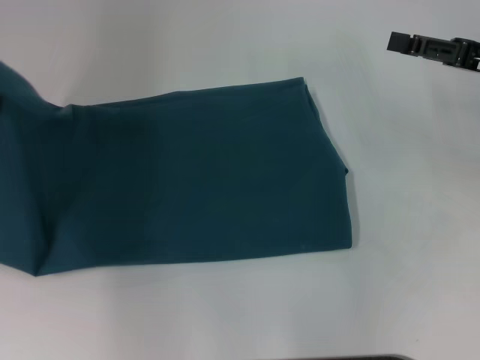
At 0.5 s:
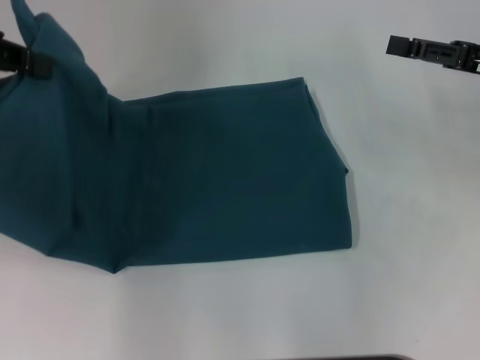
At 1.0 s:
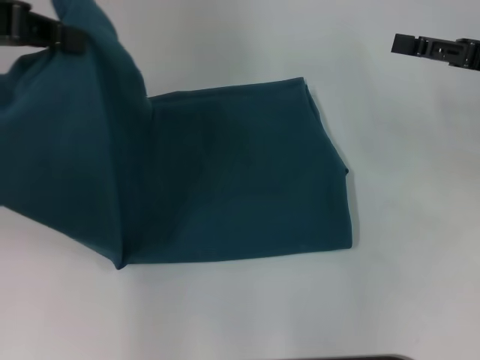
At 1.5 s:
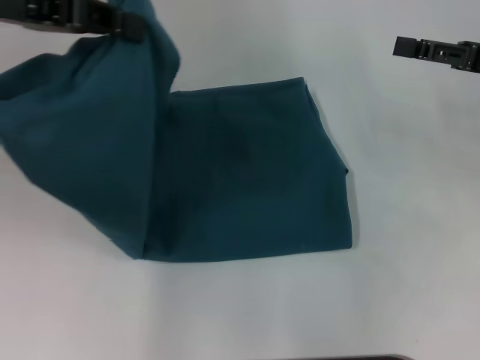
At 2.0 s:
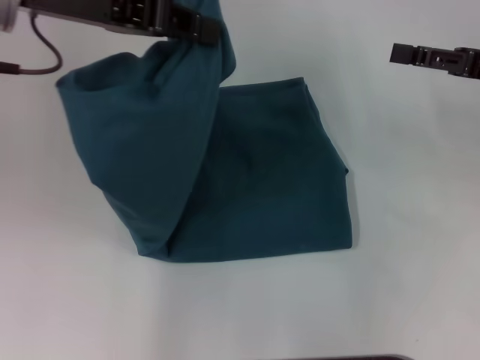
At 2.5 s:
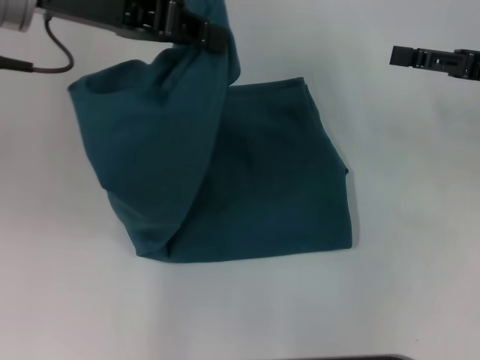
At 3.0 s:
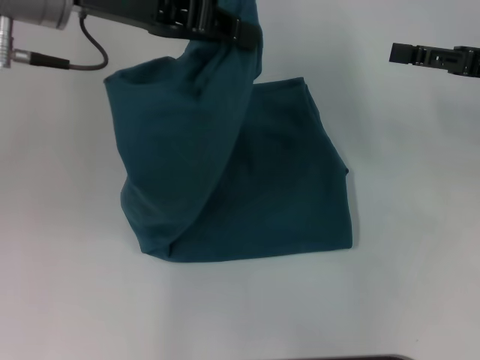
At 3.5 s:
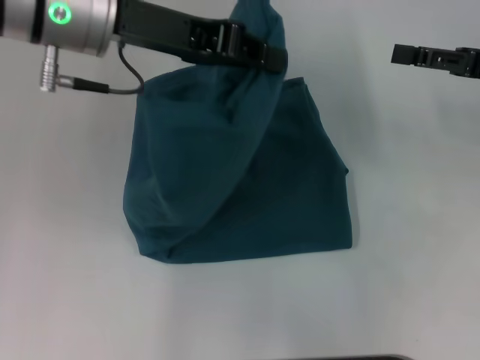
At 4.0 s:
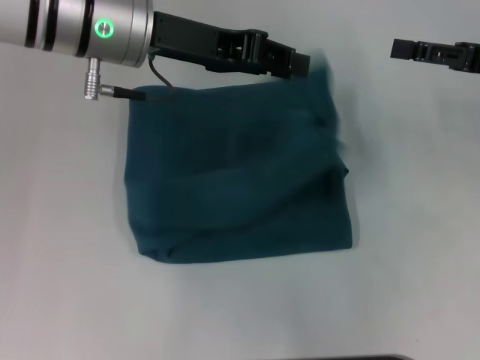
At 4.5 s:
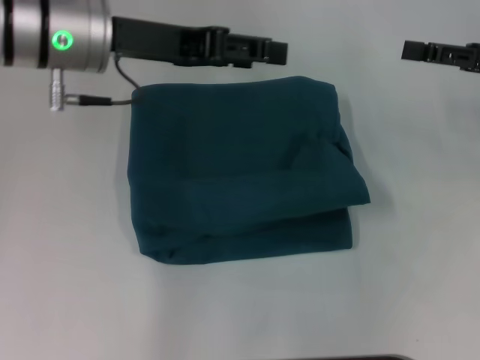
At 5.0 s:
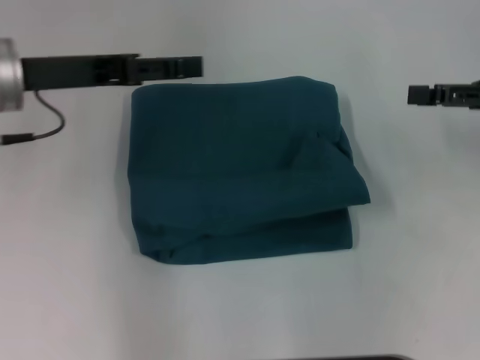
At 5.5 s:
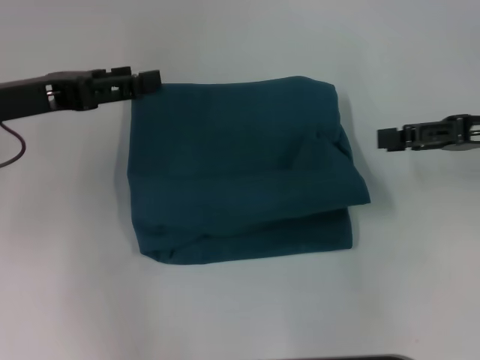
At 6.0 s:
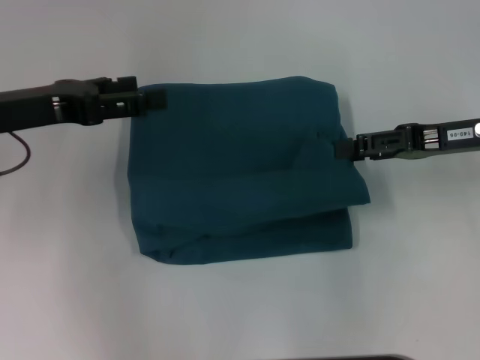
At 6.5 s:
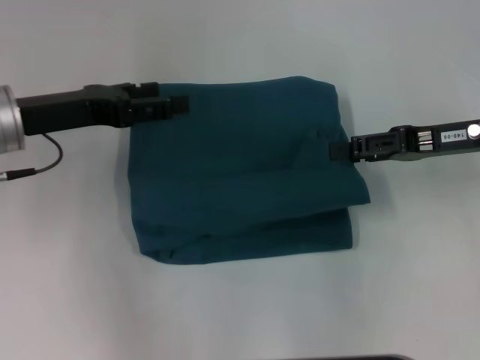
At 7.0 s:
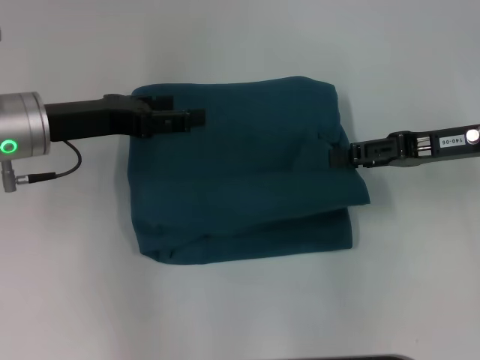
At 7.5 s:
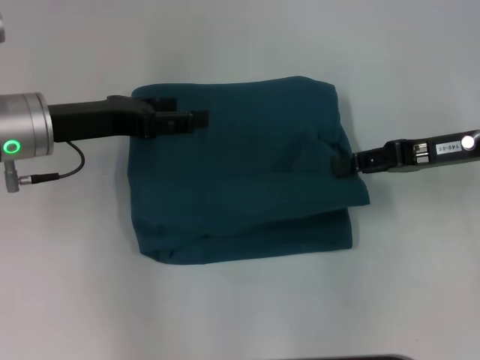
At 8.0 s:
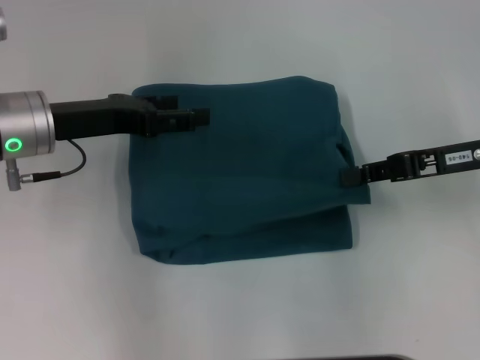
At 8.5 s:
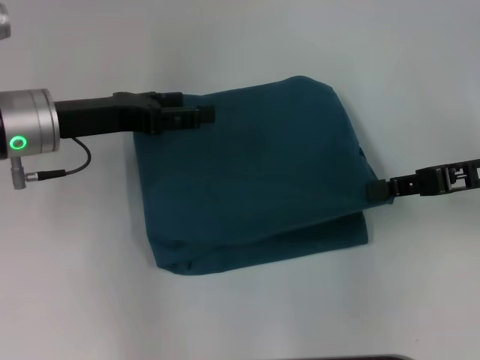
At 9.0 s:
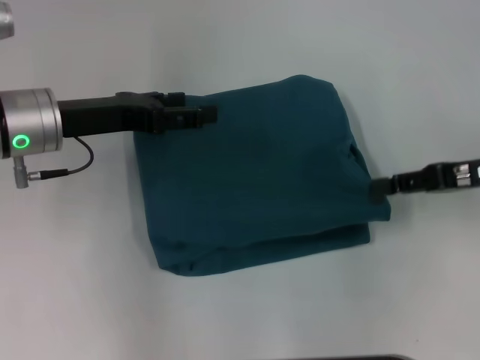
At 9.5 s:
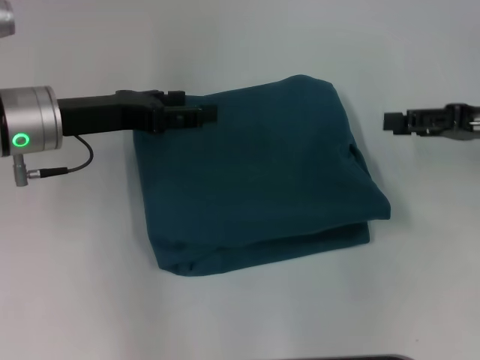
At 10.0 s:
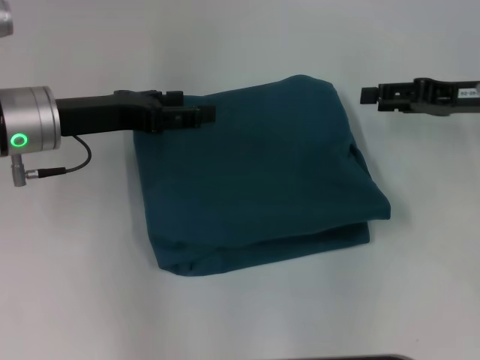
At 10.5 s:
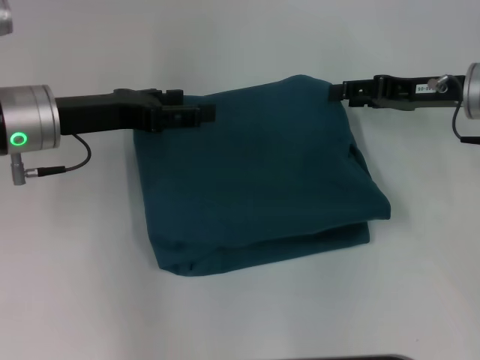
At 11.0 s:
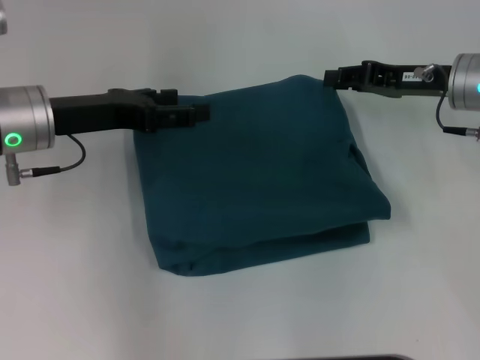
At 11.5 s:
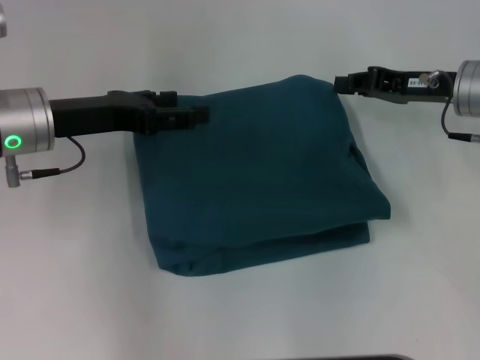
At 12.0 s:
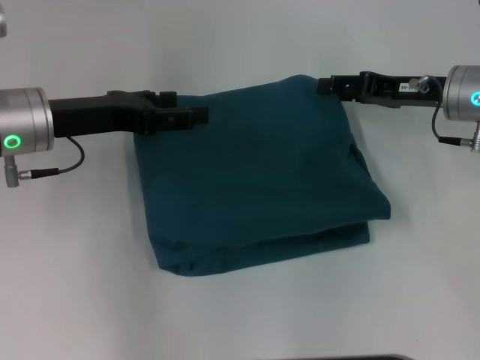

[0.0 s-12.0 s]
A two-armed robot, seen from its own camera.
Step, 0.0 to 4.0 s: Fold the clothes to the left.
0.0 to 2.0 s: The left gripper moves to the right, some 15 cm.
2.0 to 4.0 s: The left gripper shifts some 10 cm downward and to the right.
4.0 to 6.0 s: The left gripper travels to the left and backward by about 15 cm, and opens its fingers. Meanwhile the right gripper ends up some 5 cm from where it was.
6.0 to 8.0 s: The right gripper closes up. Meanwhile the left gripper changes place by some 5 cm.
8.0 to 10.0 s: The right gripper ends up some 5 cm from where it was, and opens up.
10.0 to 12.0 s: The right gripper moves to the left, roughly 5 cm.

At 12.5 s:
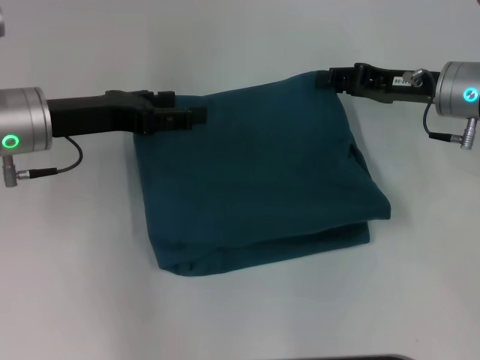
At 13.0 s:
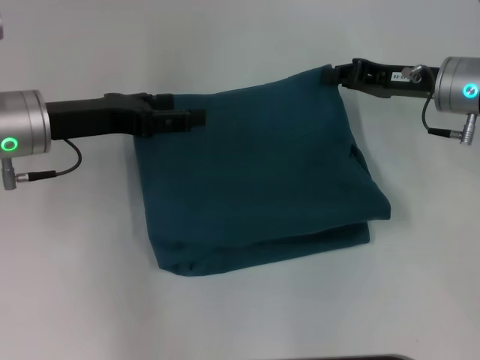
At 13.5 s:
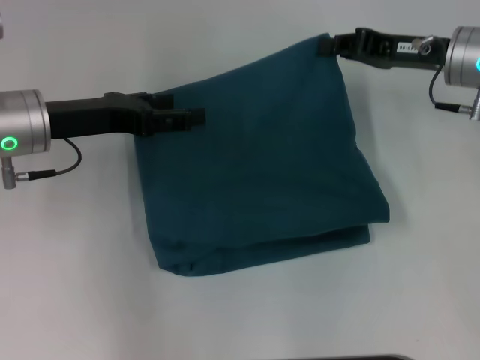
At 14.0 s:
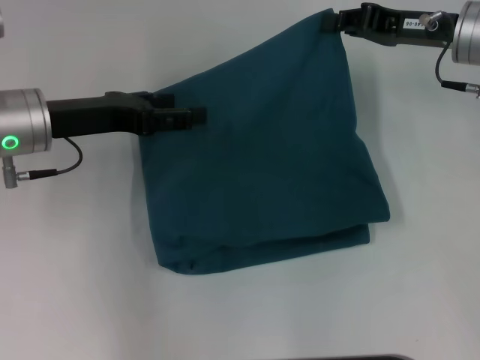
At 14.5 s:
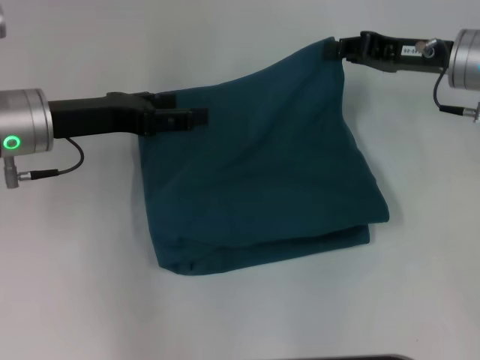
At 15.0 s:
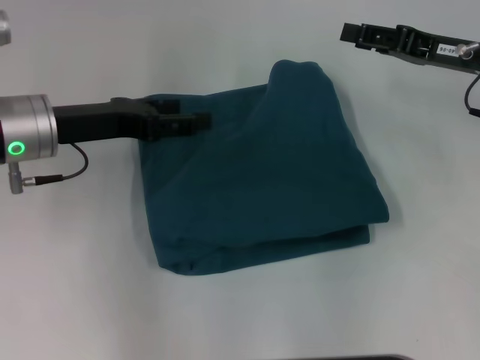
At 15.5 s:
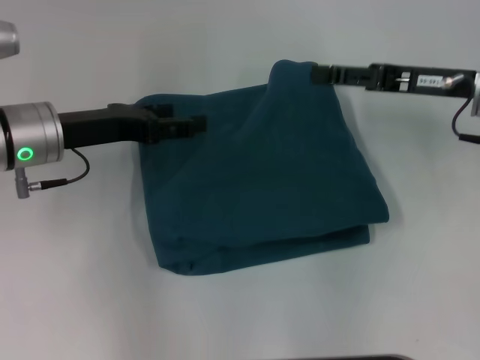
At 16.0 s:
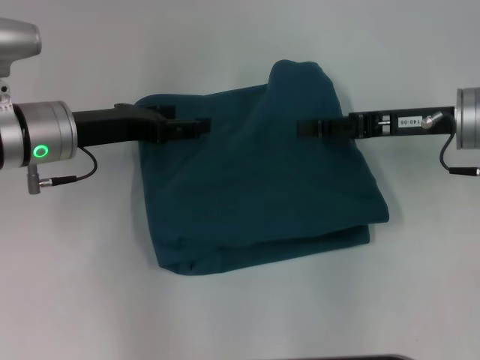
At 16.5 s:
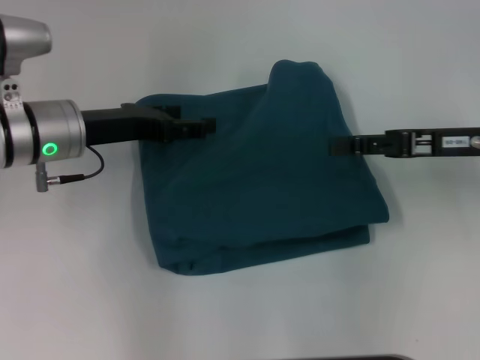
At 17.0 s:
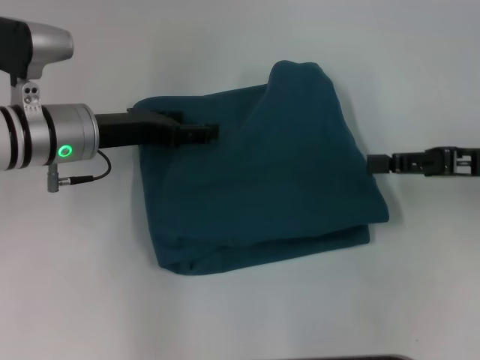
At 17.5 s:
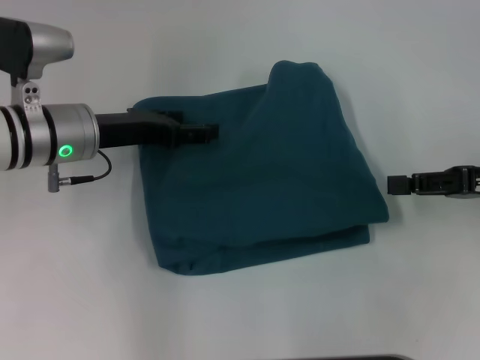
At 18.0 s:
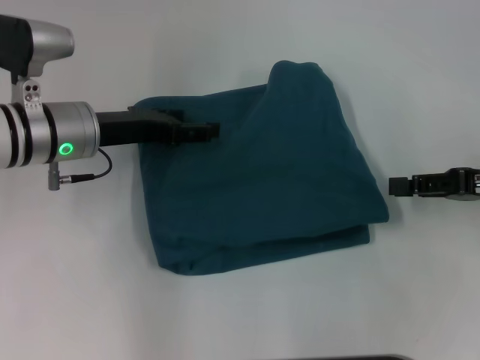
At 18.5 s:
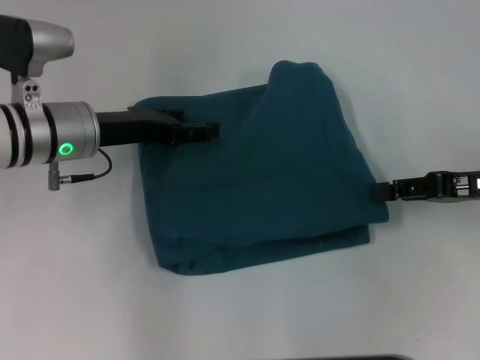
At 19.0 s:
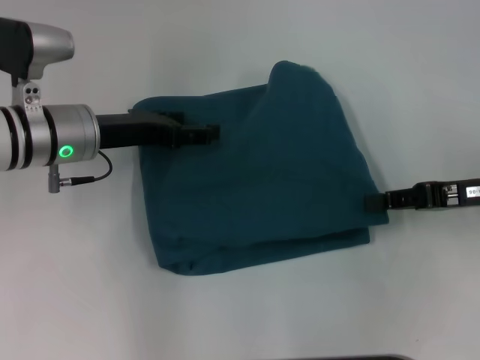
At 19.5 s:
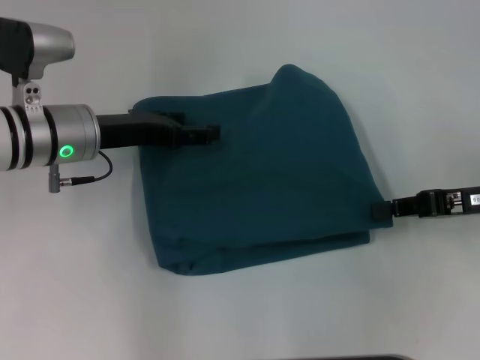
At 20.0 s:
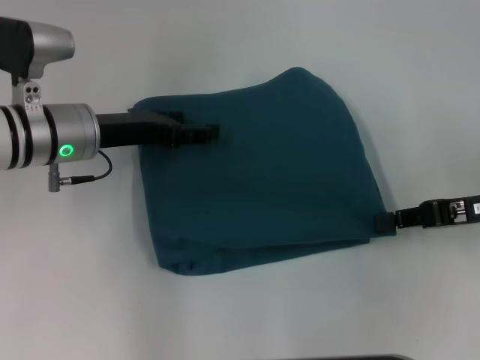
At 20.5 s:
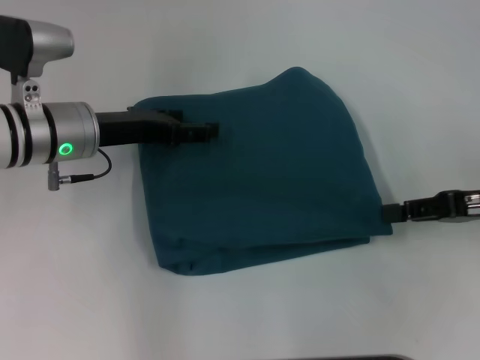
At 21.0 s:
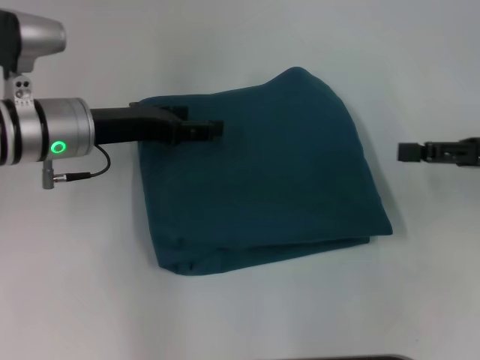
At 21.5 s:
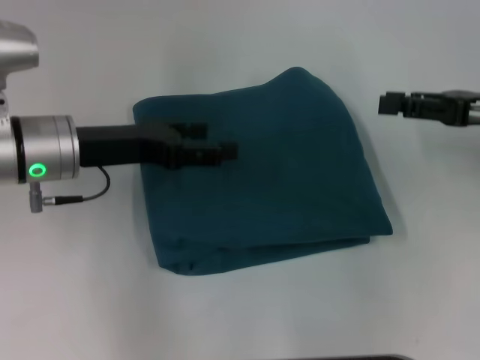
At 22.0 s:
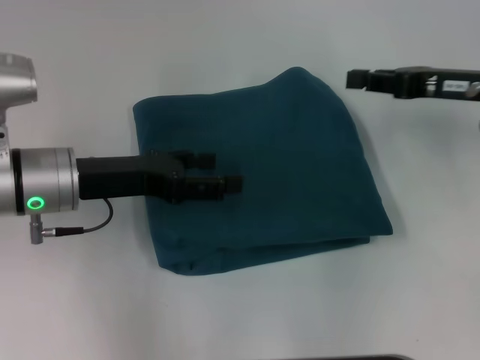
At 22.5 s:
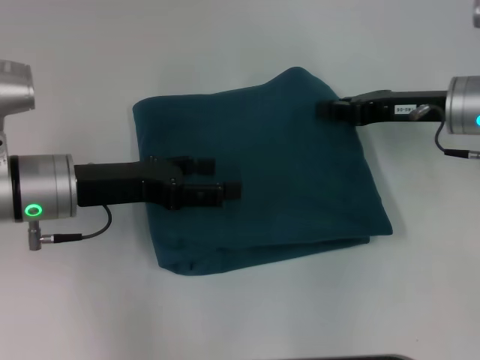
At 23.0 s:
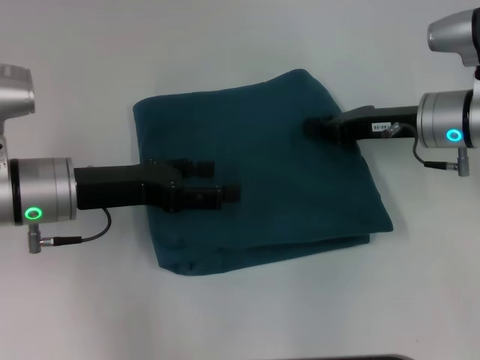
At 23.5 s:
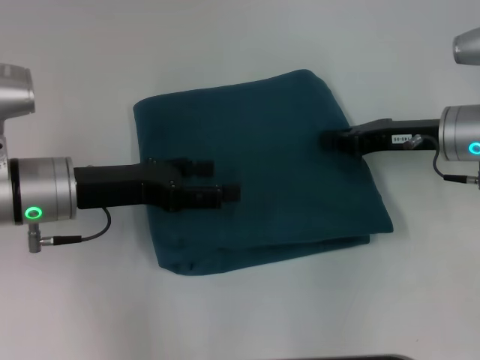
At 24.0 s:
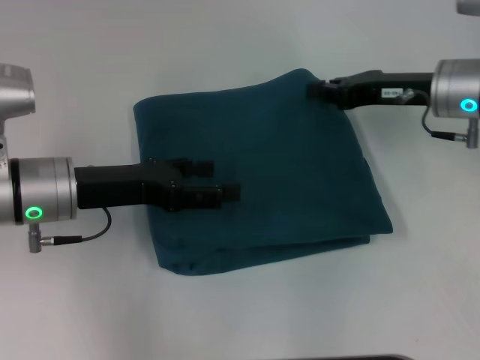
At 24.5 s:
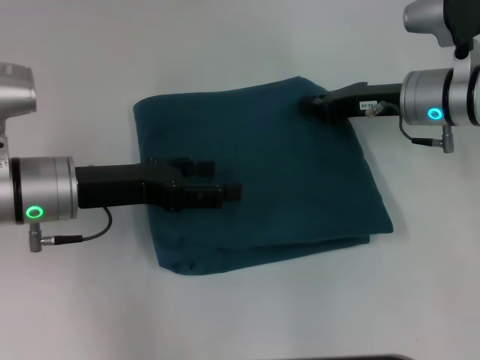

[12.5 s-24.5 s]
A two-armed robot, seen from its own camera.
12.5 to 14.5 s: The right gripper closes up.
14.5 to 16.5 s: The right gripper is displaced backward by about 10 cm, and opens, then closes once more.
18.5 to 20.5 s: There are only small adjustments of the grippers.
20.5 to 22.5 s: The right gripper travels forward and to the left by some 10 cm, and opens, then closes again. Meanwhile the left gripper is displaced backward by some 5 cm.
22.5 to 24.5 s: The grippers move only a little.

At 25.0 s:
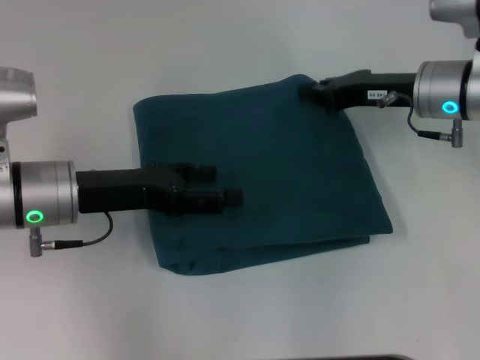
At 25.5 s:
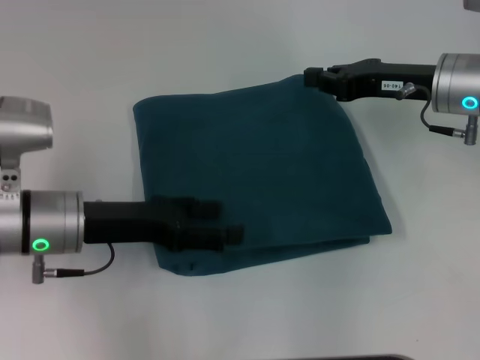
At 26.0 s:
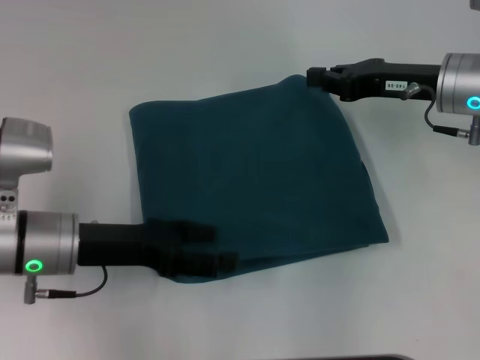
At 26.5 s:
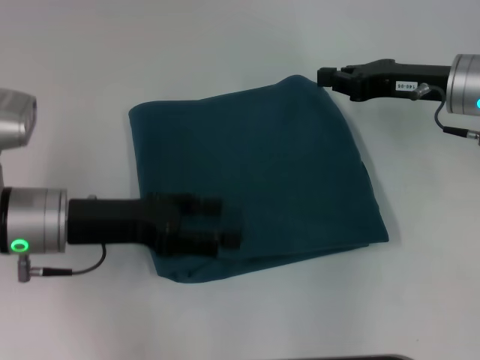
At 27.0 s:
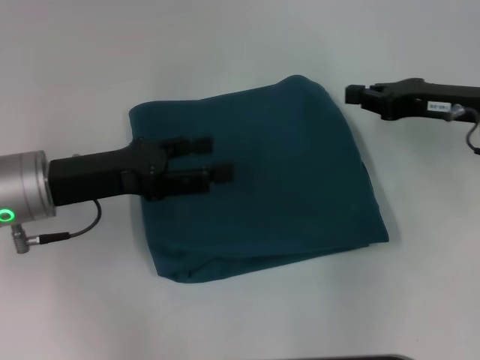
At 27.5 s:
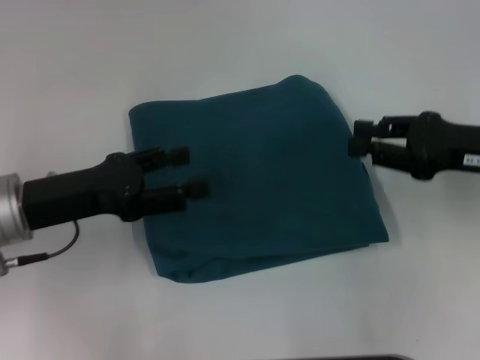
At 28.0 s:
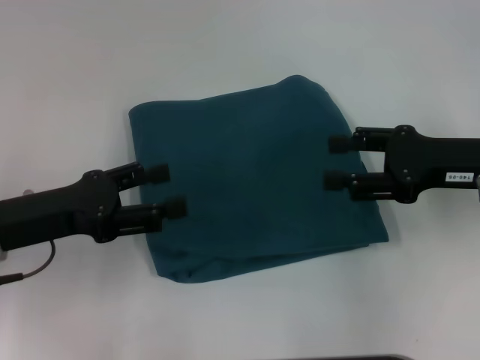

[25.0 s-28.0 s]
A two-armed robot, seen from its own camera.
25.0 to 26.5 s: The grippers stay close to where they were, moving slightly.
26.5 to 28.0 s: The right gripper goes approximately 10 cm backward, and opens its fingers, while the left gripper ends up about 5 cm from where it was.
